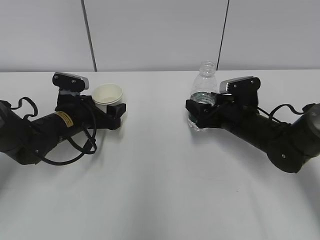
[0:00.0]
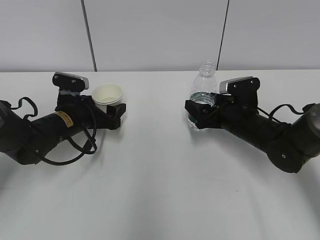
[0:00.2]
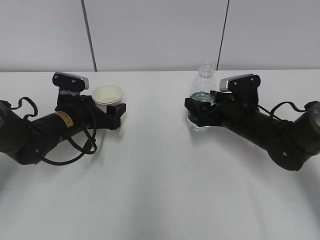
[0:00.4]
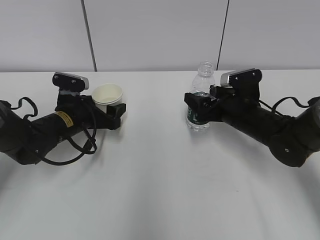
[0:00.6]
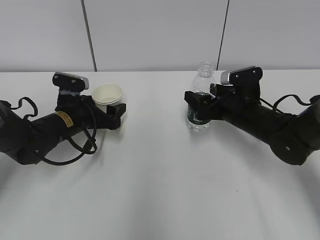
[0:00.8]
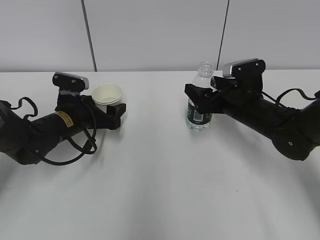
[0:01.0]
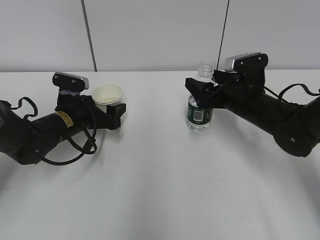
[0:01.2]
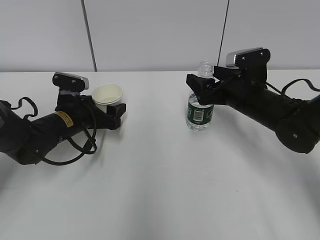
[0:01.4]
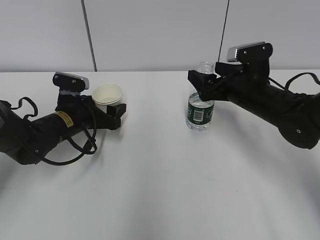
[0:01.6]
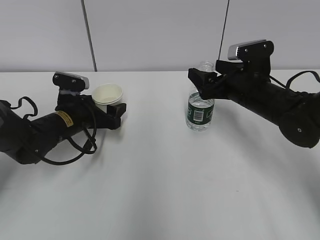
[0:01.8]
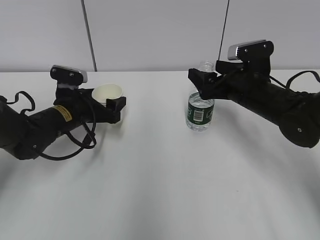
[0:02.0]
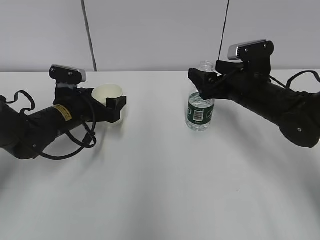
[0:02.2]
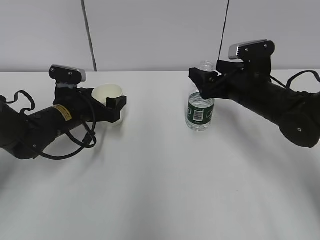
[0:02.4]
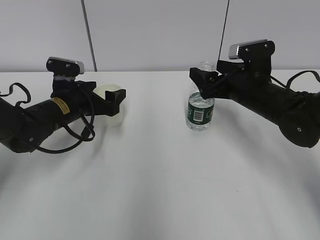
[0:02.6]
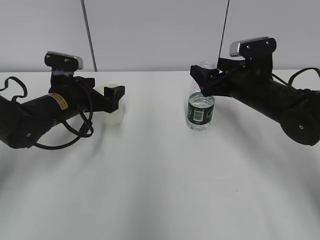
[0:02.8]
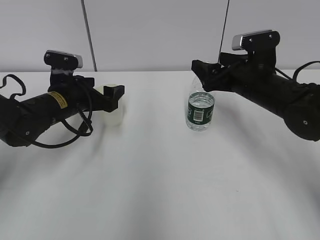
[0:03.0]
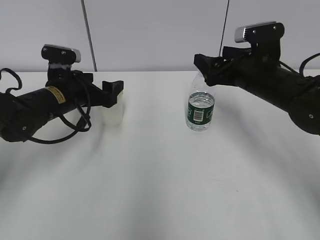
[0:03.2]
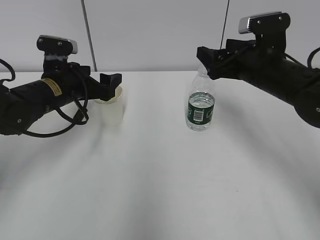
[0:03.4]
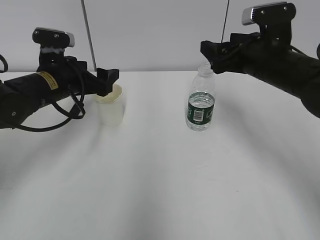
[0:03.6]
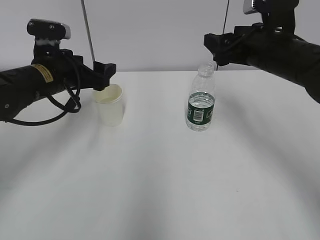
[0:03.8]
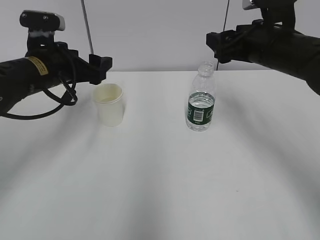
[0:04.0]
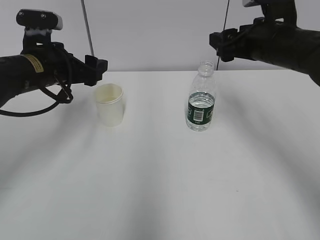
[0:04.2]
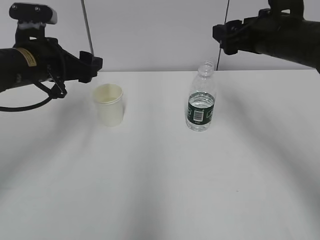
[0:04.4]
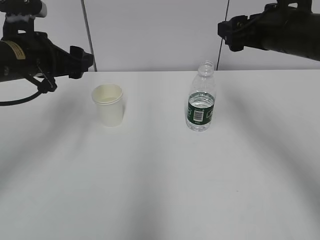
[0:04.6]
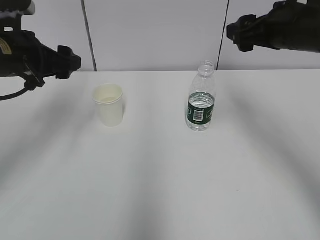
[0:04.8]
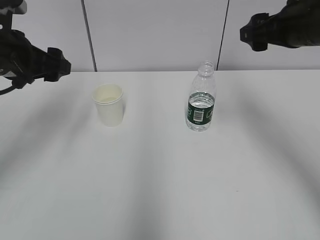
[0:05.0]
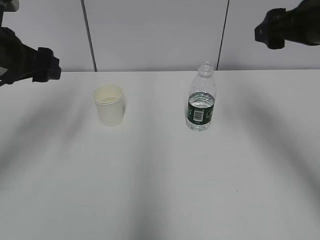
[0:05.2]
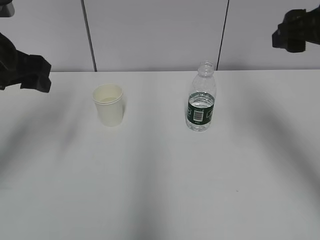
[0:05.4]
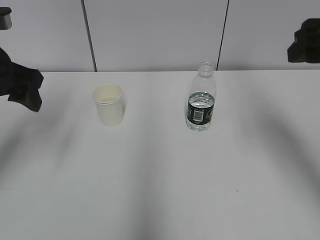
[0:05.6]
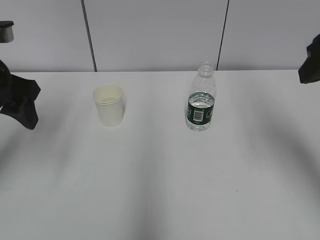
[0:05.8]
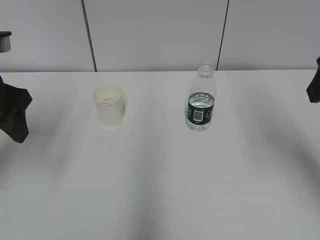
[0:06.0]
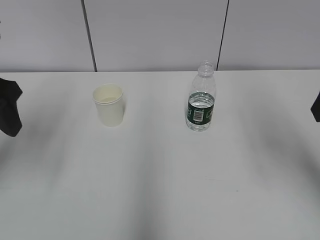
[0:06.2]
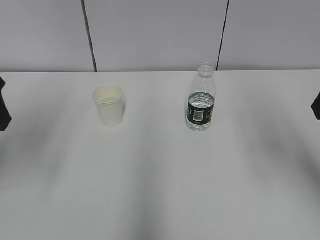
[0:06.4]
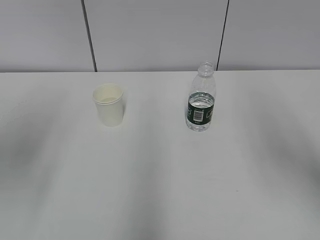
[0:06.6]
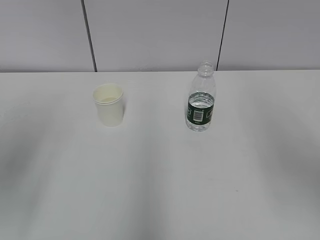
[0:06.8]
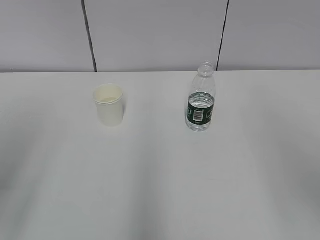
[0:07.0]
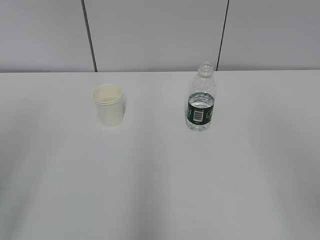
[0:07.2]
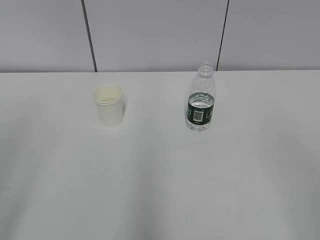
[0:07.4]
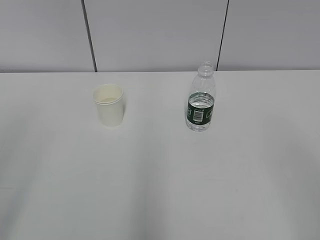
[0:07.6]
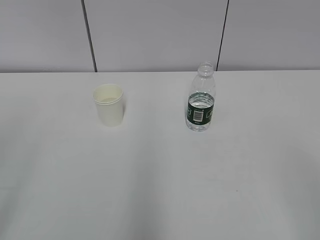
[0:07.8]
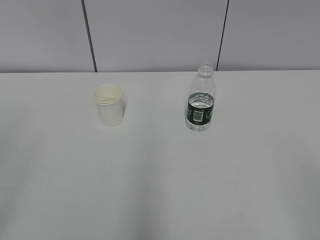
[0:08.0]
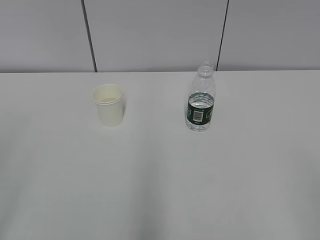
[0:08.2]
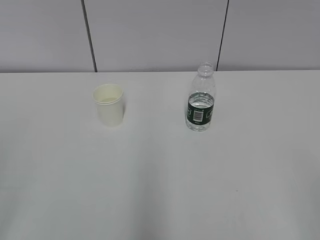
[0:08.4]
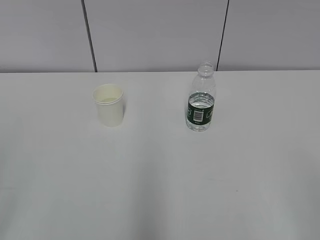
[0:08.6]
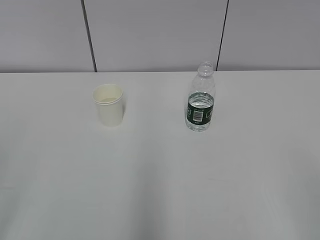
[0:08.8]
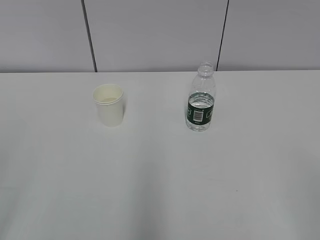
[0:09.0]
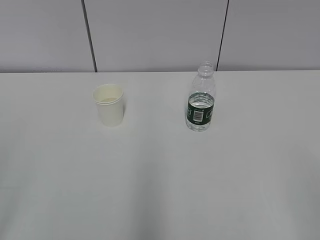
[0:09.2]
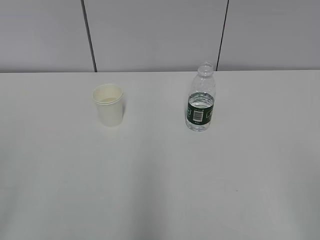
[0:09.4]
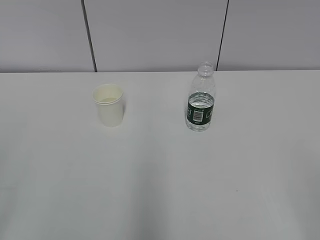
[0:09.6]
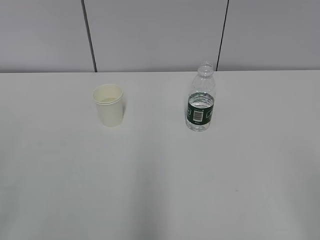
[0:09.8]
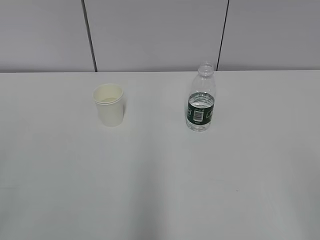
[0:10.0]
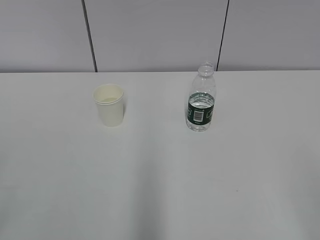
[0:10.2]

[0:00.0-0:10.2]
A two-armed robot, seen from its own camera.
0.0 to 1.4 s: The right gripper heads upward, covering some 5 cm.
1.4 to 3.0 s: There are only small adjustments of the grippers.
3.0 to 4.4 s: The grippers both shift upward by roughly 10 cm.
4.4 to 5.8 s: Both grippers travel together backward and upward, some 10 cm.
5.8 to 7.2 s: Both grippers move backward, about 20 cm.

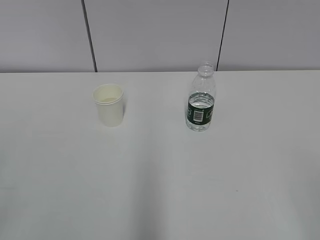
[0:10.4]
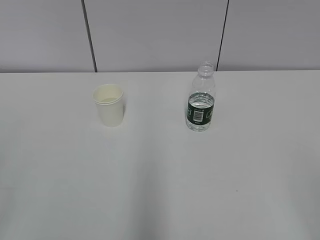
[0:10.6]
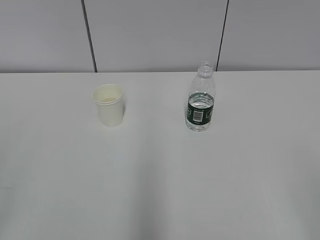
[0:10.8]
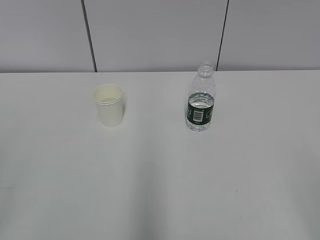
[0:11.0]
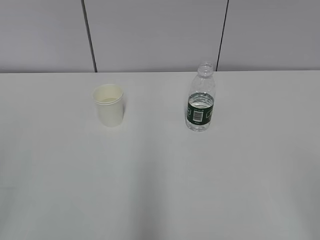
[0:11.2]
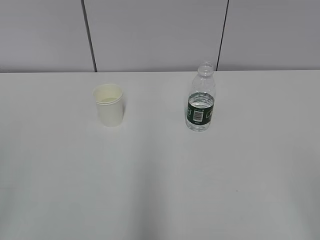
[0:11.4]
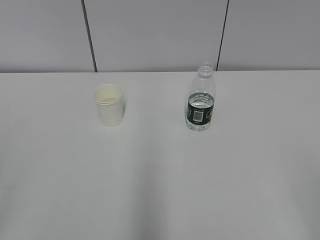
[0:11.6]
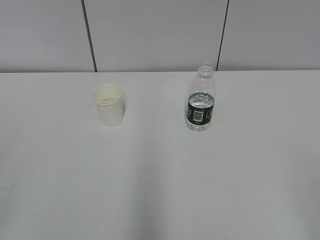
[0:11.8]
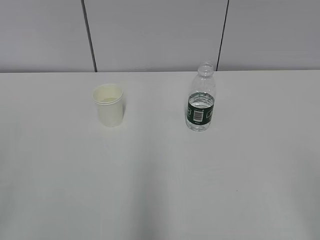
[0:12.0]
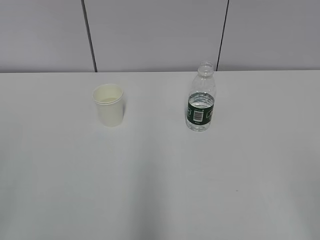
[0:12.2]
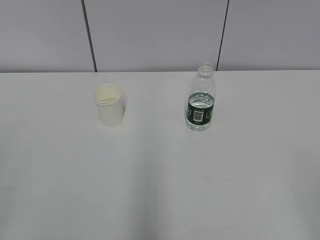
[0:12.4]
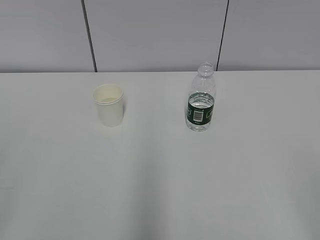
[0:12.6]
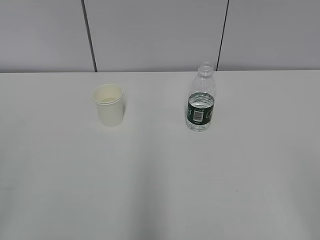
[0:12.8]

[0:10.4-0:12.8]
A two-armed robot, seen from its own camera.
10.4 to 12.8 s: Both grippers stay put.

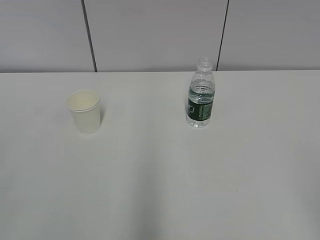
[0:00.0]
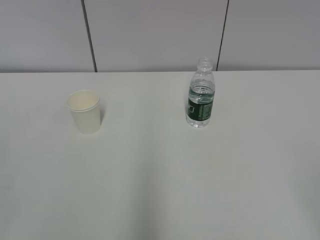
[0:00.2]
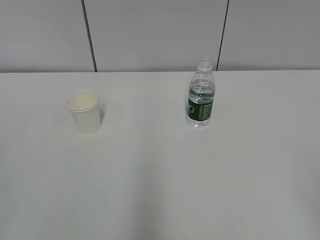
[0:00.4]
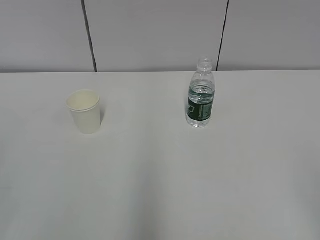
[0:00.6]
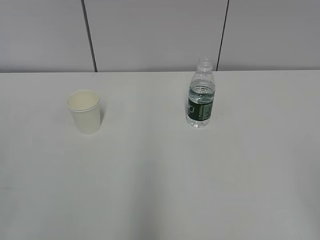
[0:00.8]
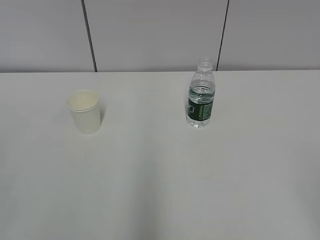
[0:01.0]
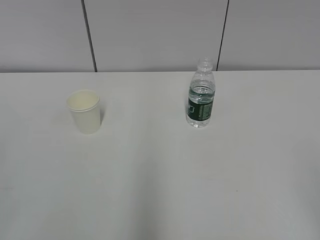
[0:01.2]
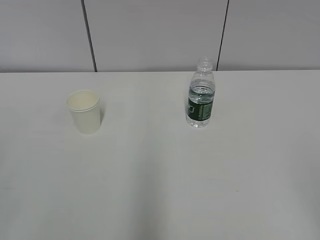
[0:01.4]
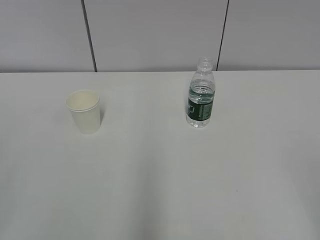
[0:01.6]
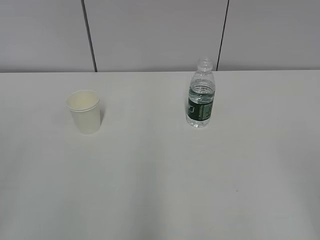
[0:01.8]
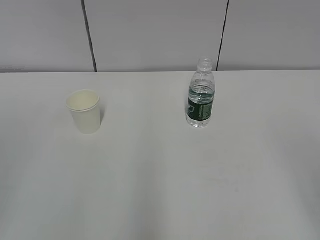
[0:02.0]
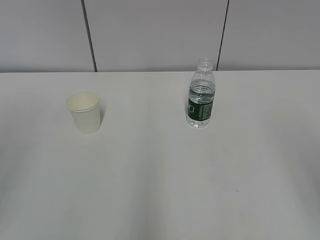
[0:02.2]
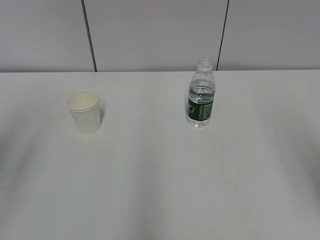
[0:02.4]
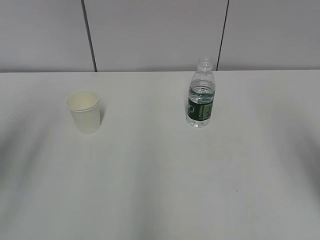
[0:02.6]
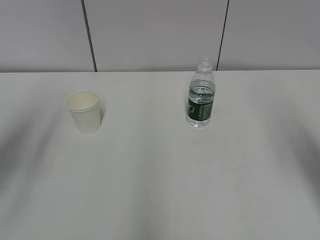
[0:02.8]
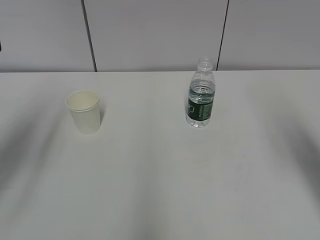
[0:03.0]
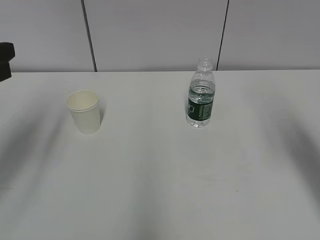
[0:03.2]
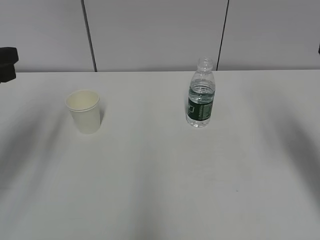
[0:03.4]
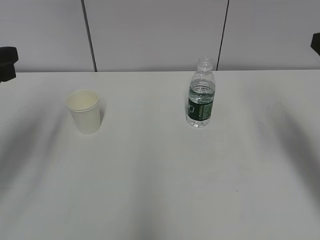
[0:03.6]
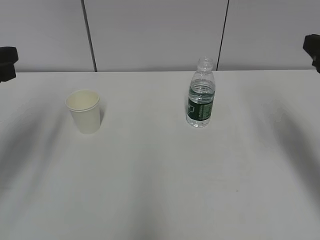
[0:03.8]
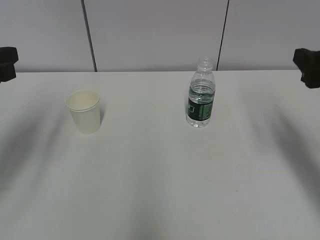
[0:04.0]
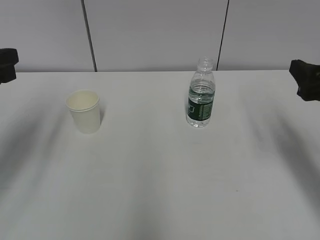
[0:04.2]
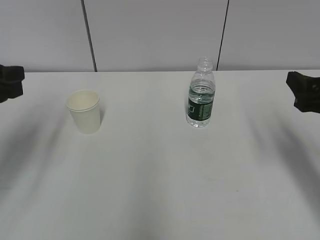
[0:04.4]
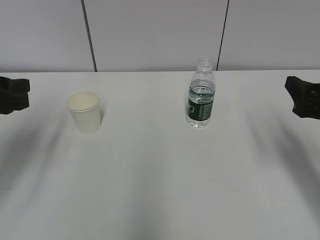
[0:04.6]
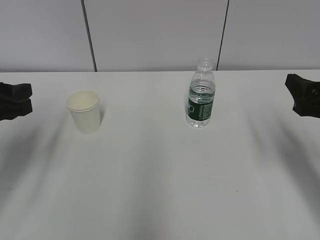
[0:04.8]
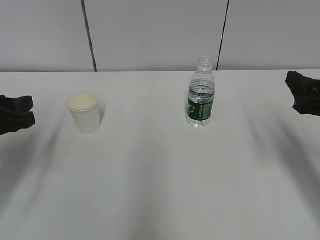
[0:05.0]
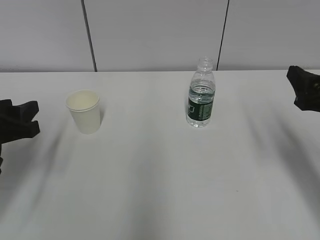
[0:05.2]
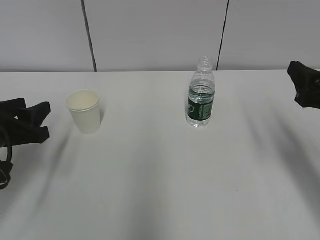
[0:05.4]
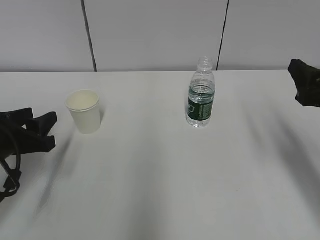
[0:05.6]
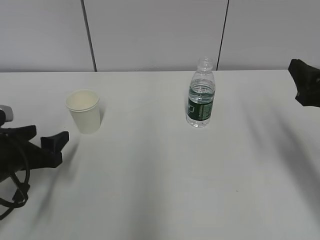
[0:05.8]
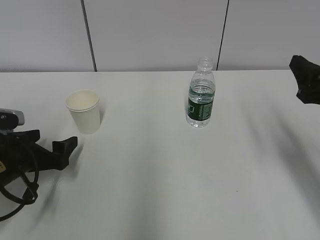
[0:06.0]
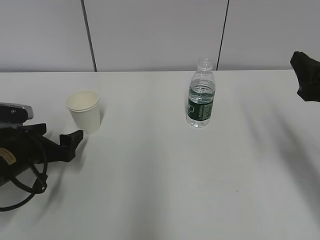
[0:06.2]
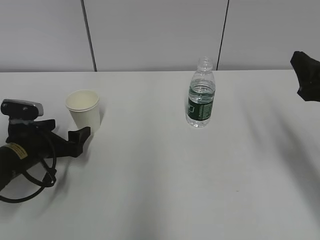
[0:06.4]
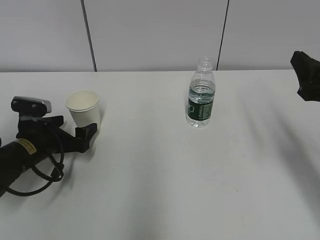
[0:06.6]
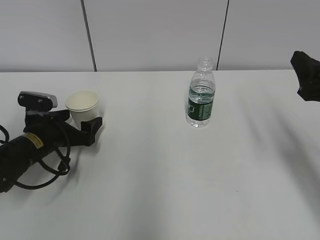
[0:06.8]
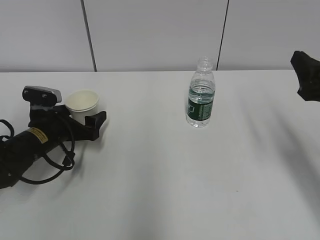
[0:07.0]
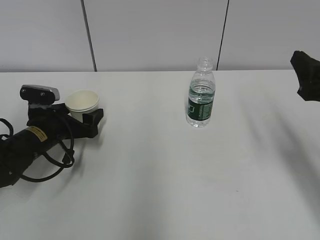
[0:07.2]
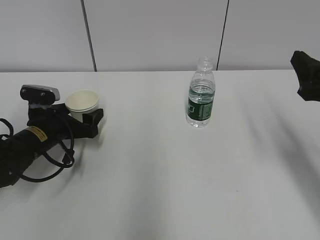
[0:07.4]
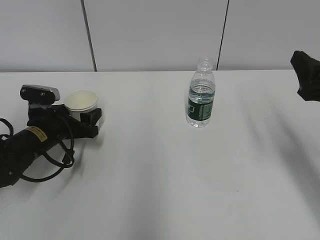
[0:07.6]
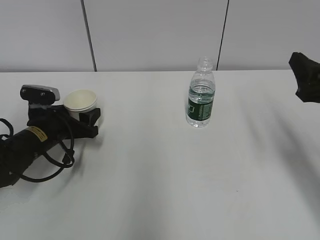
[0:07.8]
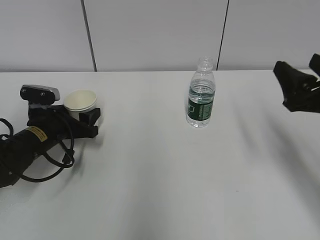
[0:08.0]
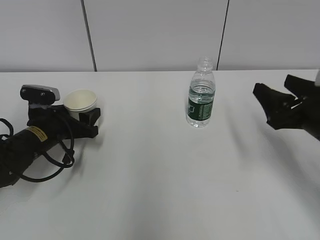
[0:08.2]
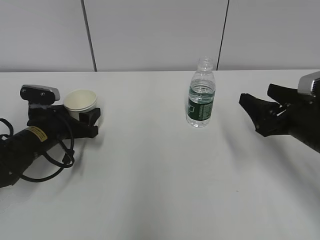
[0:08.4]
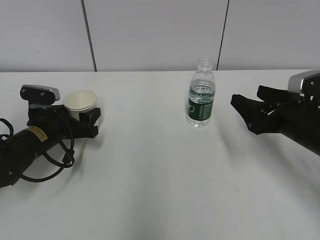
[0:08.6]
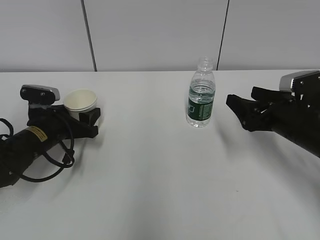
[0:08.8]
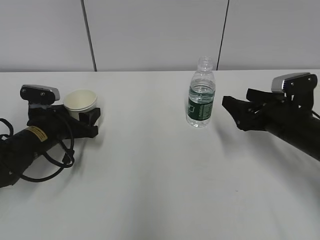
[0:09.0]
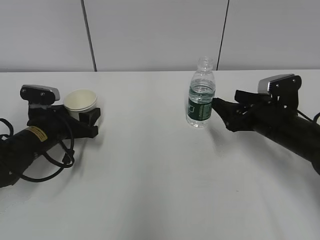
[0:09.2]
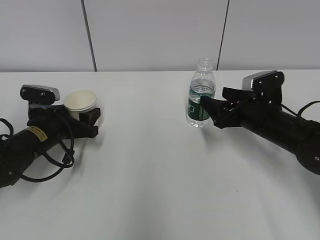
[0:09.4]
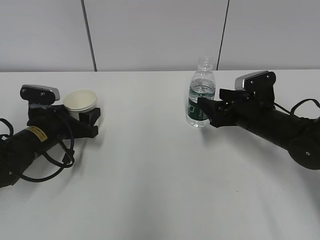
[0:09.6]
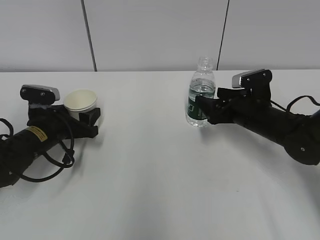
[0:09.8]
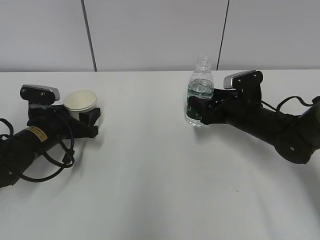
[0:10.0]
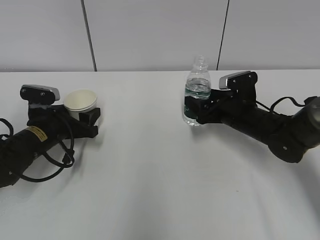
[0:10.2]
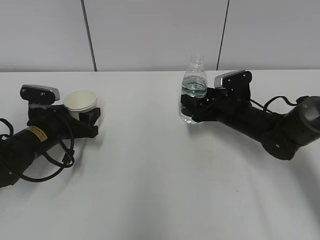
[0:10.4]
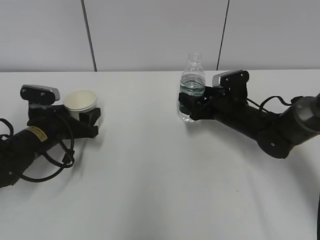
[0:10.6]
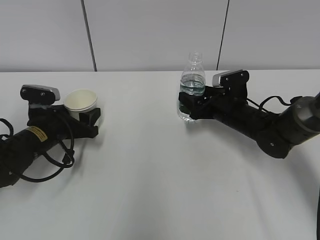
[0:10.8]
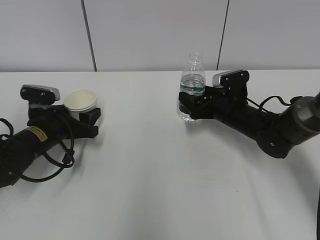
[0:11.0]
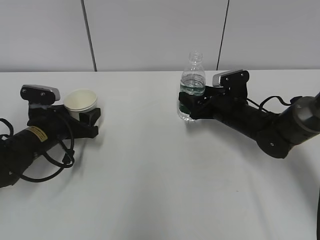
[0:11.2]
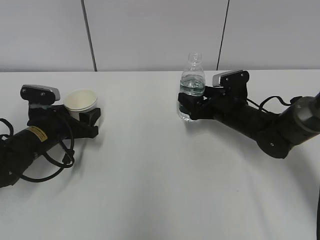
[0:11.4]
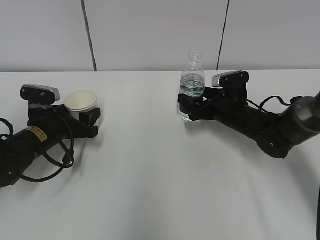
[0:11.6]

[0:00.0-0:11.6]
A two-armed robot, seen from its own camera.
Step, 0.0 to 6.4 s: Grab the paper cup with the left hand.
Step, 6.6 to 10.8 s: Grab the water bottle with the right hand.
1.4 to 2.8 s: Both grippers move forward, roughly 20 cm.
2.8 to 4.4 s: The right gripper moves downward and forward, about 15 cm; the left gripper is displaced downward by some 5 cm.
4.4 to 5.8 s: The left gripper moves downward, approximately 15 cm, and opens up.
5.8 to 7.2 s: The left gripper shifts approximately 10 cm forward.
7.2 to 8.8 s: The right gripper shifts approximately 10 cm downward and forward.
8.8 to 10.2 s: The right gripper shifts some 10 cm forward and to the left.
10.2 to 11.6 s: The right gripper opens up.
